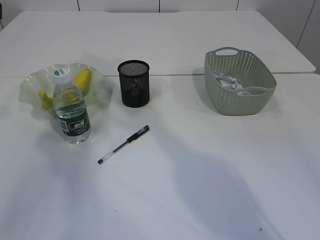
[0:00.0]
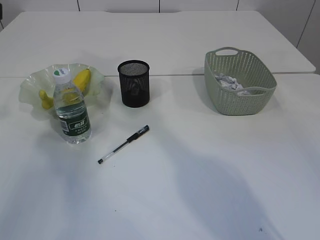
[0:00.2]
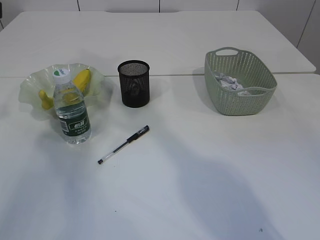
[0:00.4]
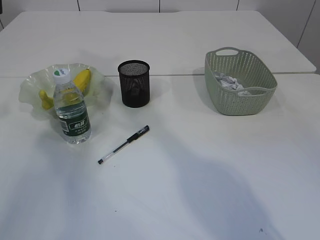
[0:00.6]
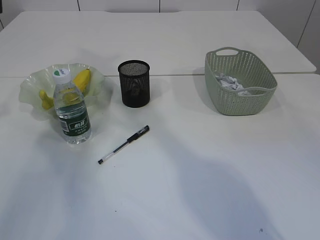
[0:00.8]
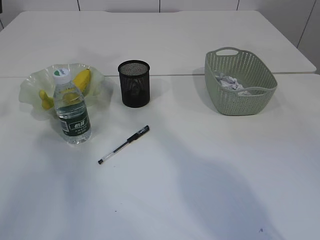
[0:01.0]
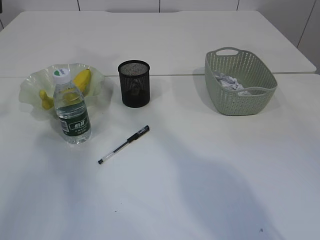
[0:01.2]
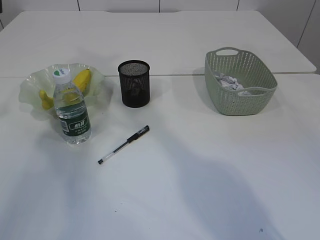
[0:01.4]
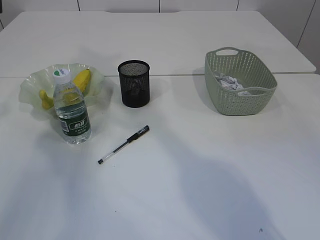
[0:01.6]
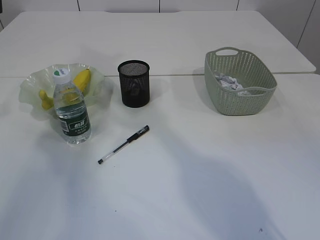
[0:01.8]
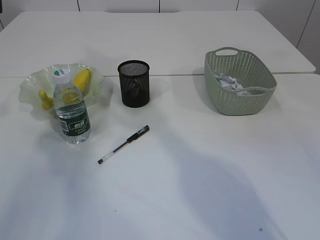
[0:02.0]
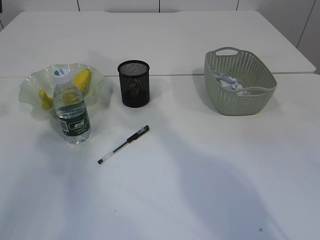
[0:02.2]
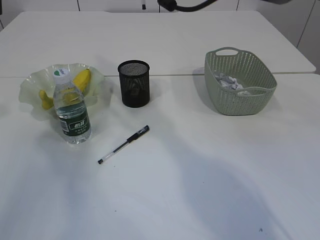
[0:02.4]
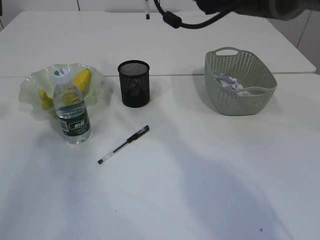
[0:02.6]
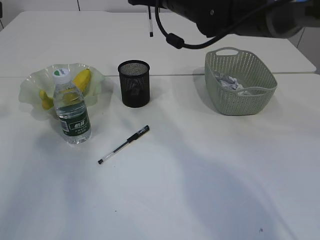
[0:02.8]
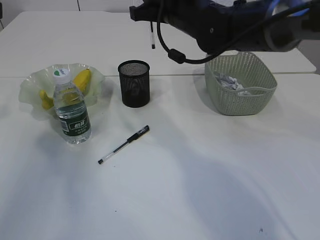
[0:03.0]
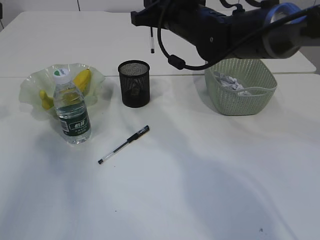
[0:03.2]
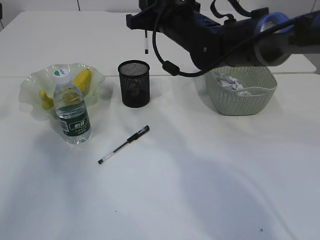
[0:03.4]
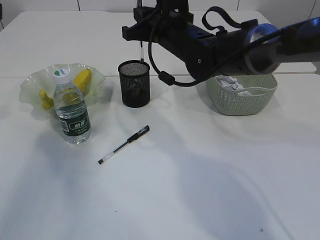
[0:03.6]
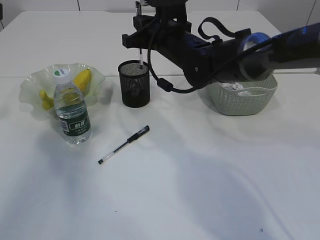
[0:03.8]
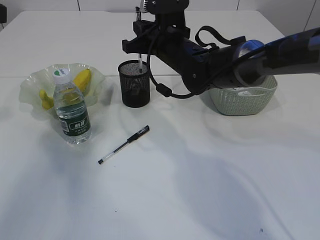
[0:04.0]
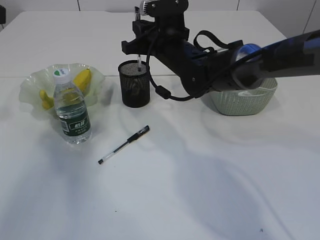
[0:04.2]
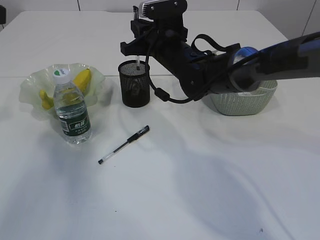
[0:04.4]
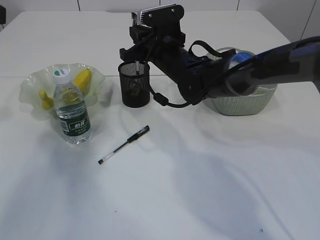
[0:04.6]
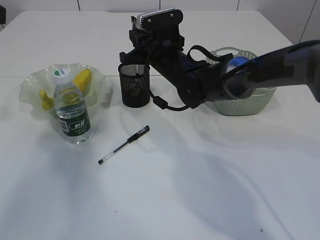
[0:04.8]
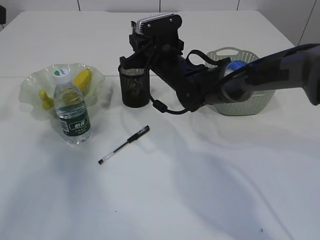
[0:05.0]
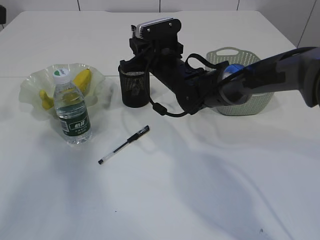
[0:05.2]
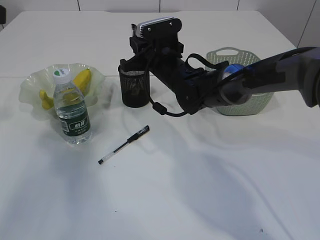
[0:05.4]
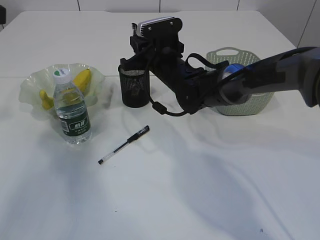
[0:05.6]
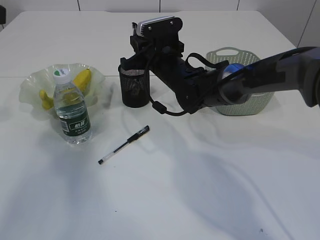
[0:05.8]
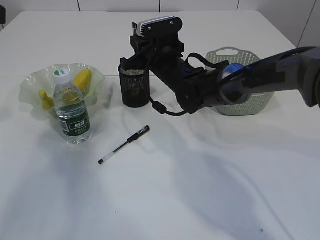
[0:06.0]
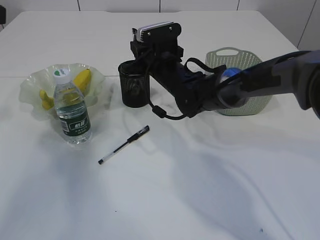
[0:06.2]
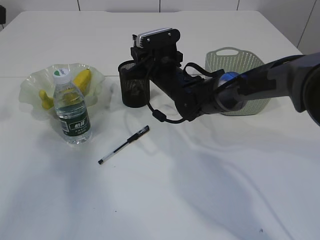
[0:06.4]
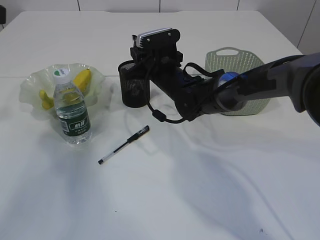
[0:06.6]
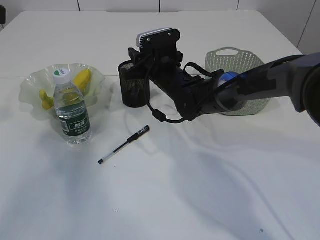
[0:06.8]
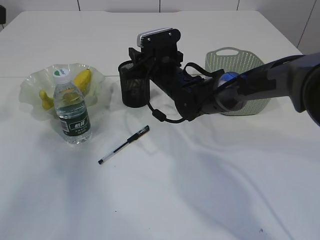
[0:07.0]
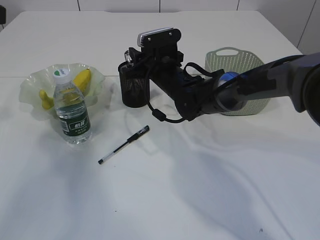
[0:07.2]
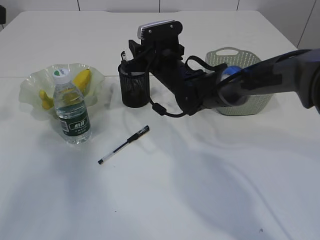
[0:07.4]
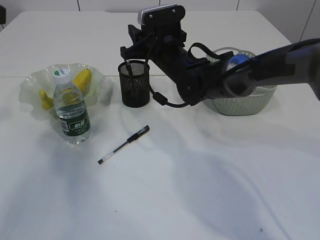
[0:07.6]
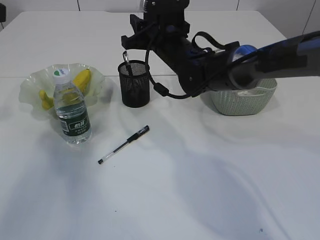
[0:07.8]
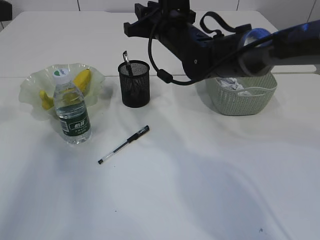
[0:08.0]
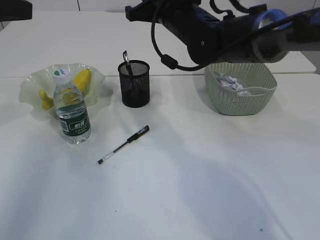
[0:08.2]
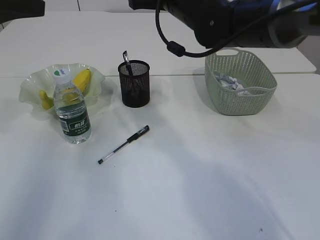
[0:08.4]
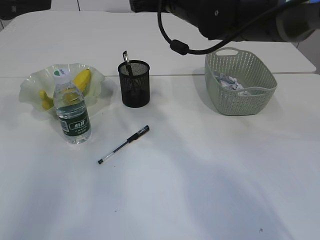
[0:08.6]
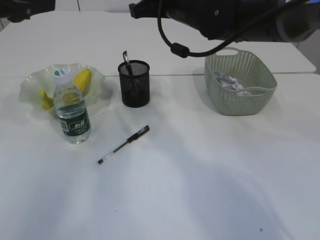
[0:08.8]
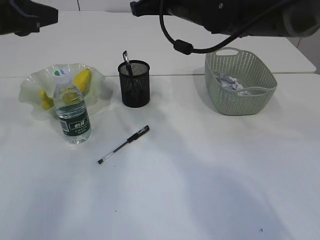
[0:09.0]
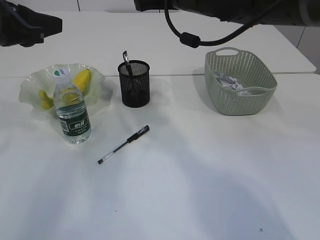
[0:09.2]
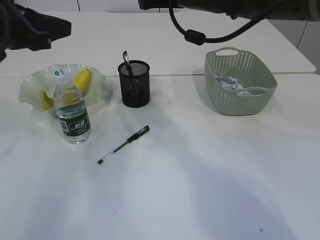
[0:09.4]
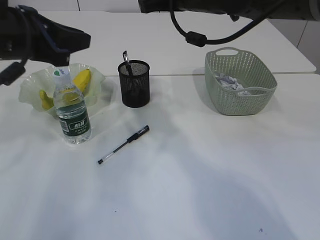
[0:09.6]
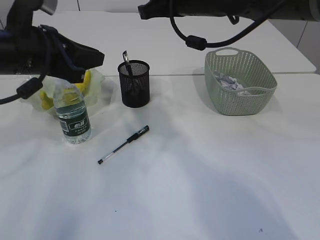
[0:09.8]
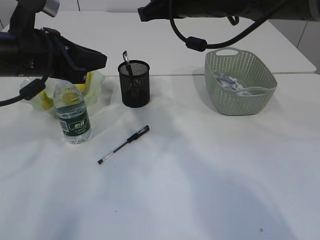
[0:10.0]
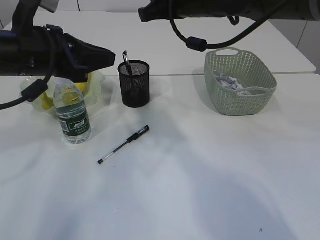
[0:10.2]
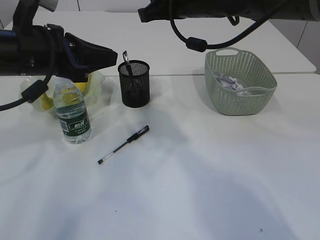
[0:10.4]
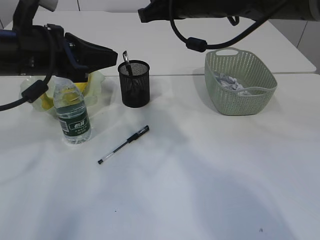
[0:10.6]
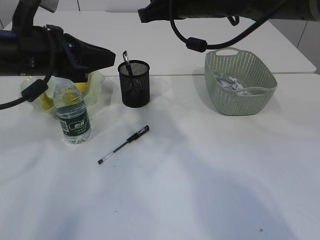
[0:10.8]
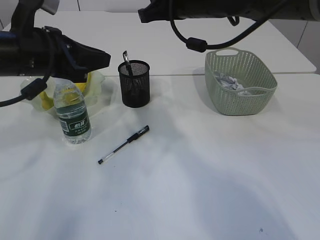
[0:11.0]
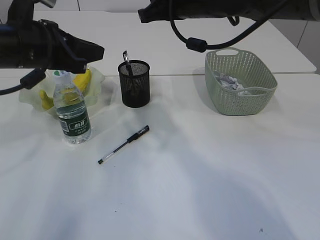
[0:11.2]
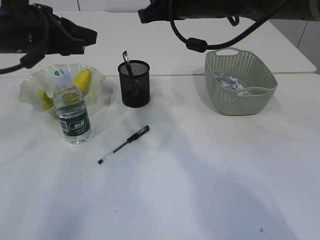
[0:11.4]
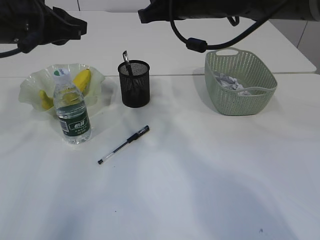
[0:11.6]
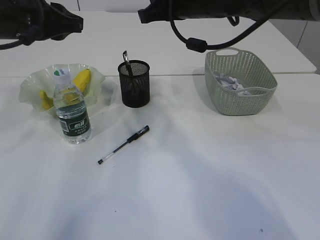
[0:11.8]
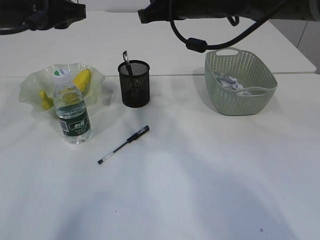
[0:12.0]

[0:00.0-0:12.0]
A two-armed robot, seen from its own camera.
Step, 0:00.0 to 0:07.0: Place the pen into the pen holder.
0:01.6 to 0:03.0: The right gripper is displaced downward by approximately 20 cm.
0:03.0 to 0:04.4: The right gripper goes approximately 10 cm downward.
0:04.4 to 0:06.0: The grippers stay close to where they were, moving slightly.
0:06.0 to 0:07.6: The right gripper opens its fingers.
0:07.6 to 0:09.0: The right gripper shifts some 10 cm upward, and closes; the left gripper is displaced to the right by approximately 10 cm.
0:09.0 to 0:10.4: The left gripper goes approximately 10 cm to the right and downward.
0:10.4 to 0:12.0: The left gripper ends up some 5 cm from where it was.

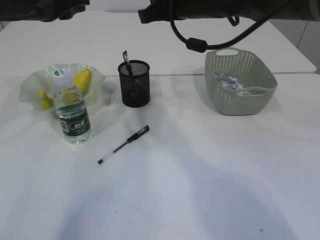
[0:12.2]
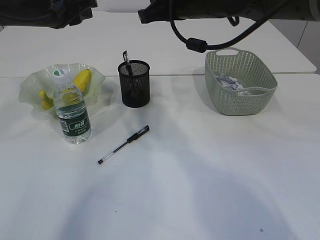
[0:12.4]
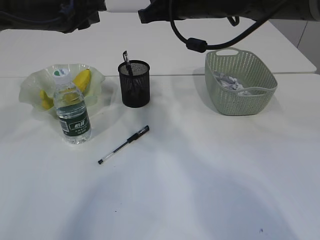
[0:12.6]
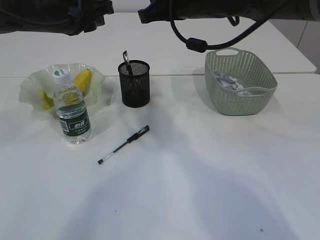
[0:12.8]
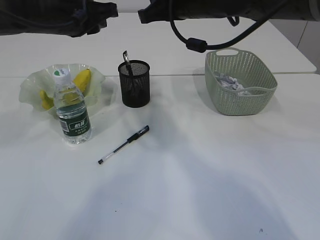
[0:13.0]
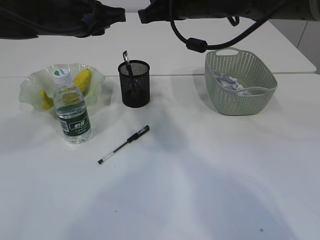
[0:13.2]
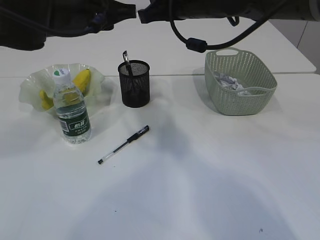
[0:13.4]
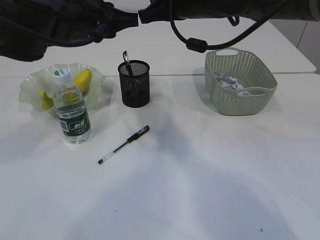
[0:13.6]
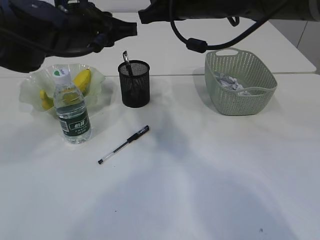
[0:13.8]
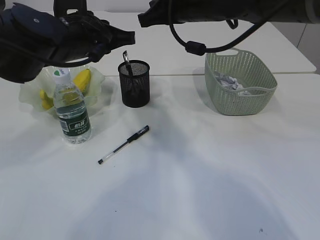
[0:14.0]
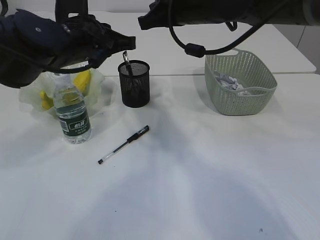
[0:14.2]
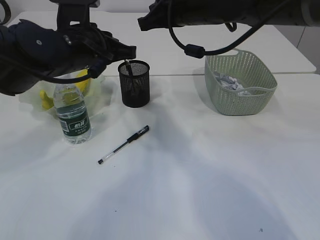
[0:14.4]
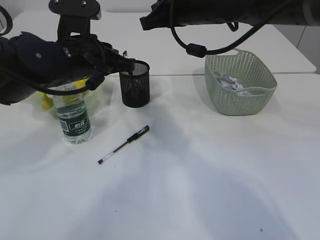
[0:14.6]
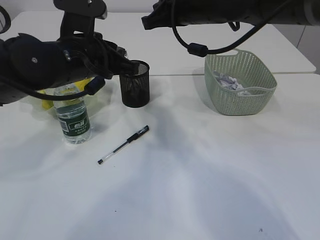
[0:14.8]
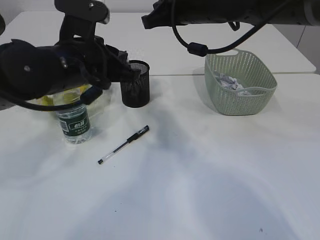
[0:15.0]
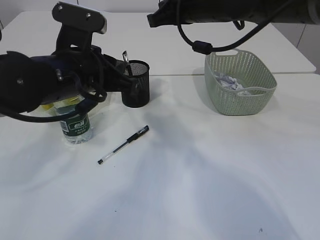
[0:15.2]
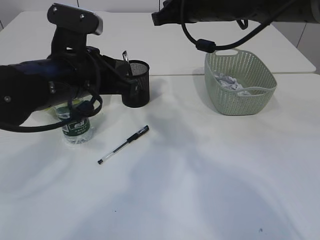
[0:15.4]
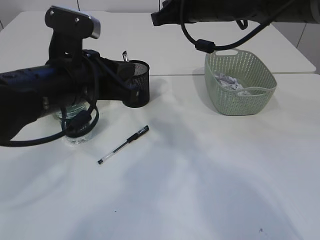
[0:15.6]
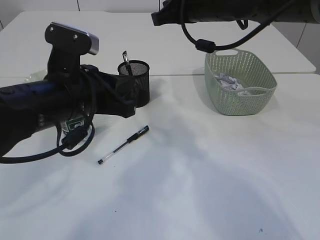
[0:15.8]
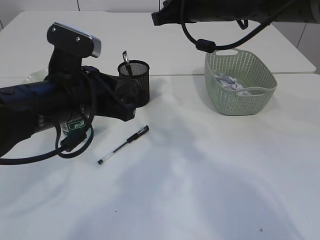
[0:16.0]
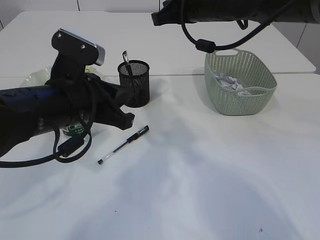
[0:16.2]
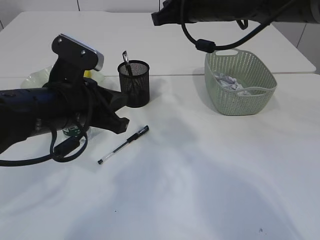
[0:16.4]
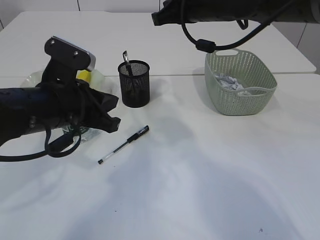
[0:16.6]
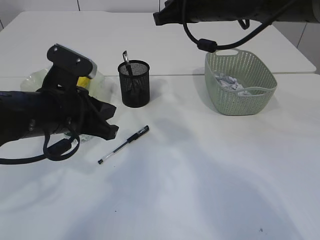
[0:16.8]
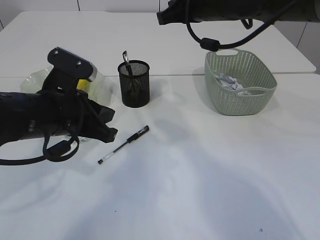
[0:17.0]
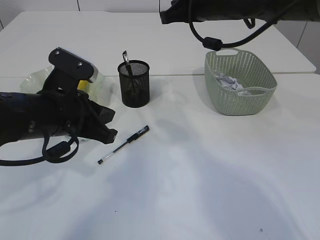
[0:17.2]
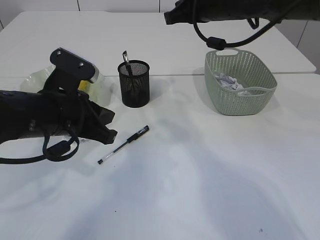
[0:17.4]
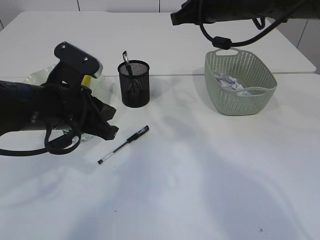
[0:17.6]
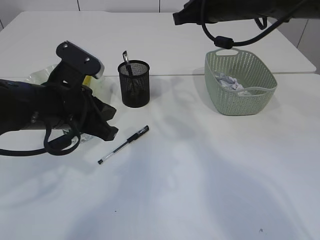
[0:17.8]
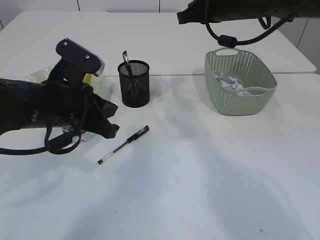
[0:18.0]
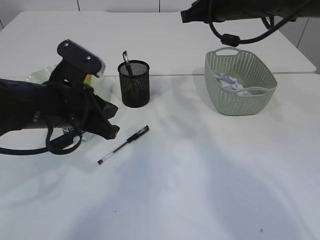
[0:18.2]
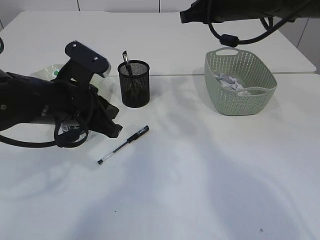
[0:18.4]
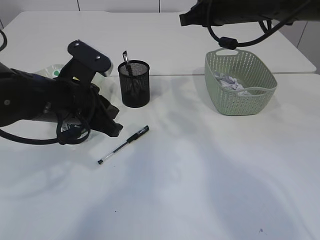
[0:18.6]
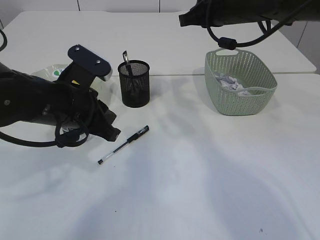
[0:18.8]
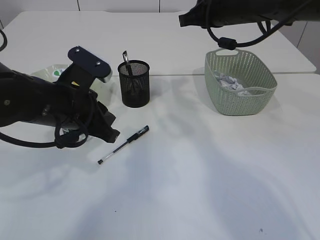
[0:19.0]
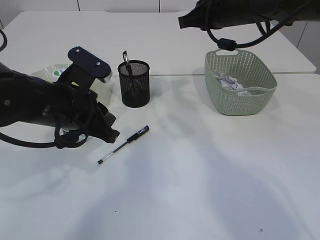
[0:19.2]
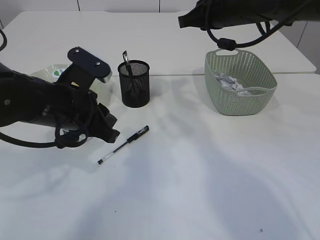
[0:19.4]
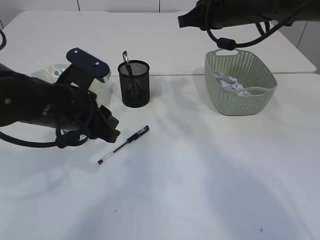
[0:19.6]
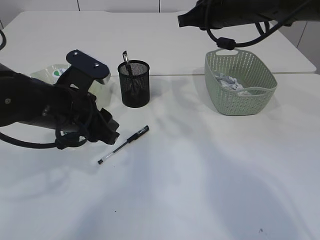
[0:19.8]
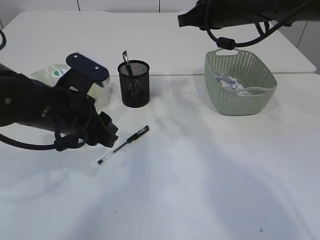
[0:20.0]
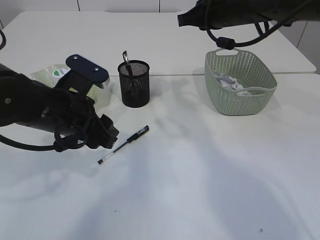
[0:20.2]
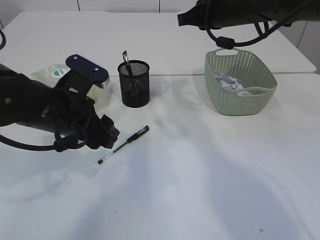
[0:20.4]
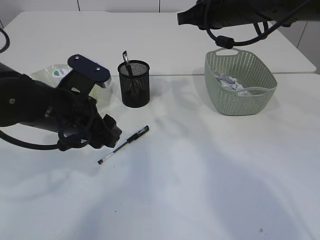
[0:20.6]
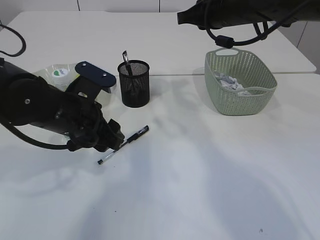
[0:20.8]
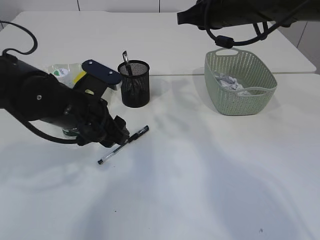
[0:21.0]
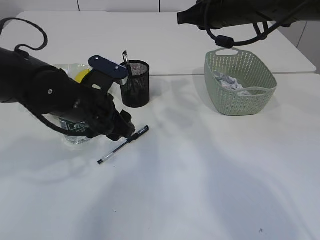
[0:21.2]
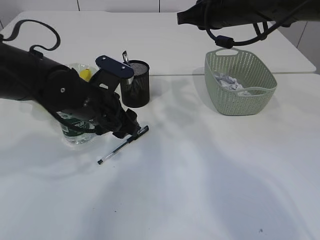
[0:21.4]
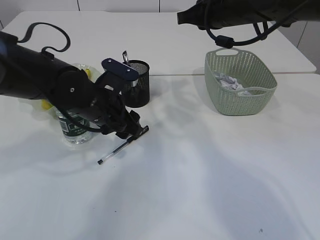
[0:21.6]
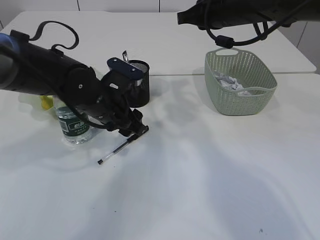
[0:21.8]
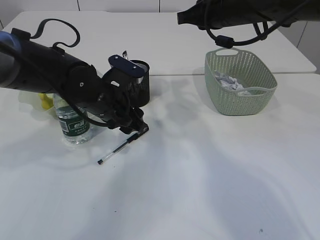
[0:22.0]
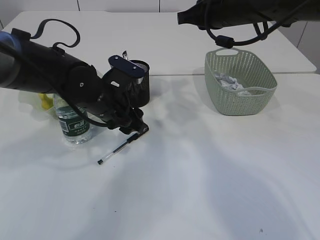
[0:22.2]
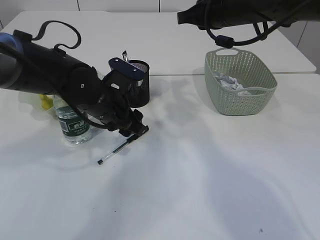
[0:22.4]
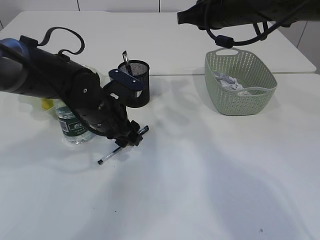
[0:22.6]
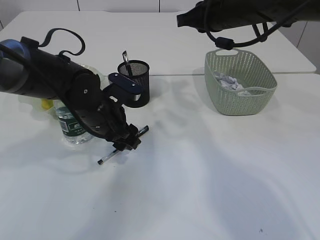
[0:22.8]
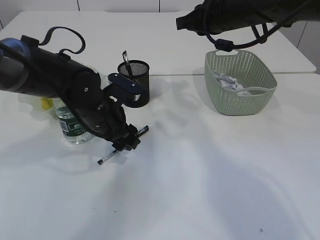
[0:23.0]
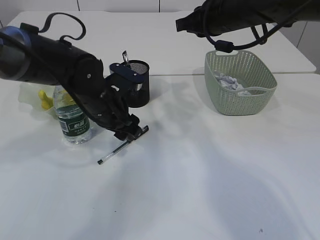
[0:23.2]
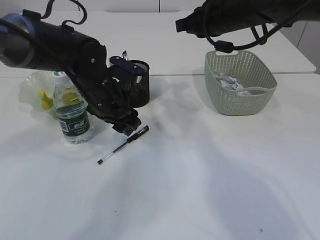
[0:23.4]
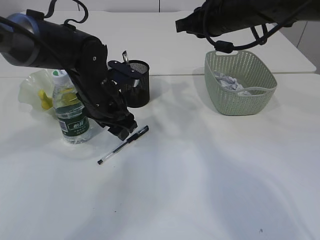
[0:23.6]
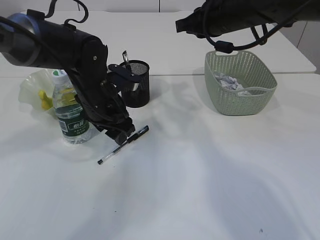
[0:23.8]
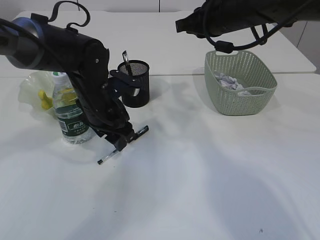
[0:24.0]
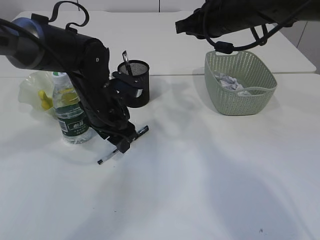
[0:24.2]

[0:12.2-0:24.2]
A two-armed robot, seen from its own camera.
0:12.2 to 0:13.8: The left gripper heads to the right, covering about 10 cm.
0:13.8 to 0:15.2: The left gripper is displaced backward by roughly 5 cm.
0:15.2 to 0:16.6: There are only small adjustments of the grippers.
0:16.6 to 0:18.2: The right gripper changes place by some 5 cm.
0:18.2 to 0:19.8: The left gripper opens up.
0:19.8 to 0:21.2: There are only small adjustments of the grippers.
0:21.2 to 0:22.6: The left gripper changes place by some 5 cm.
0:22.6 to 0:24.2: The grippers stay close to where they were, moving slightly.
